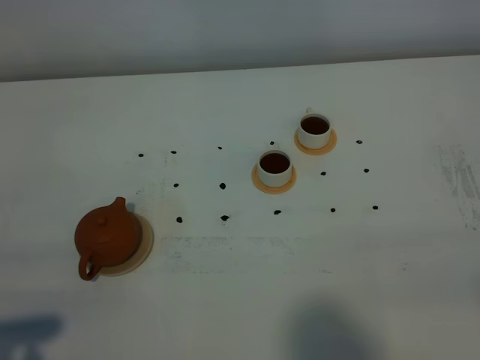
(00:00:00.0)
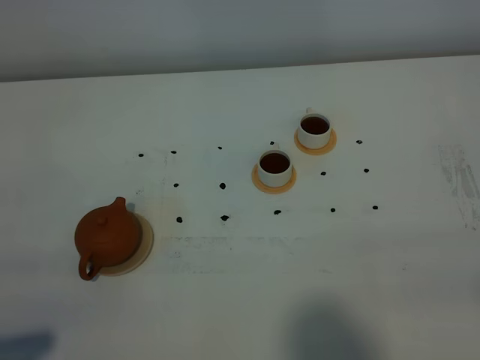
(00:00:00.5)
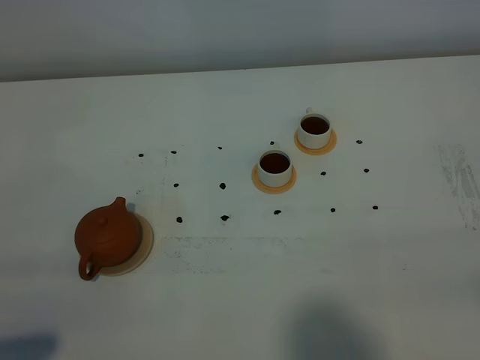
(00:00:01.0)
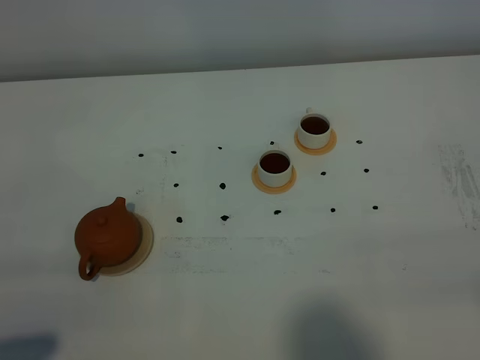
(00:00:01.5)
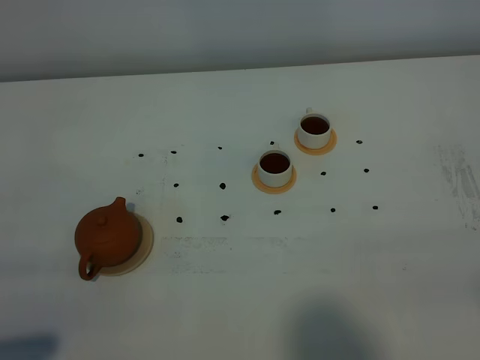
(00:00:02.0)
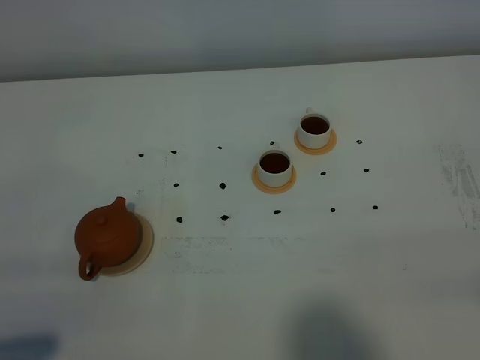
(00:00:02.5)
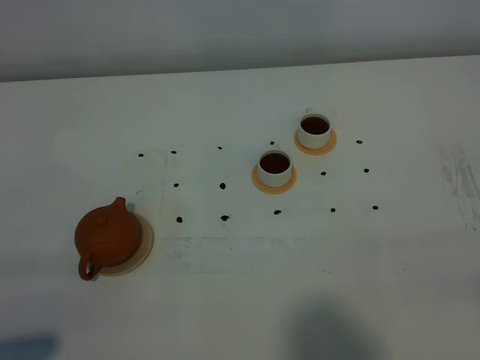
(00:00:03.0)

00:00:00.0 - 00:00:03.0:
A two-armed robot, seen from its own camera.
Task of the whole recording: grasp the brown teapot and pour the tea into the two white teacups one by one, put the brown teapot back in its original place.
00:00:01.5 - 00:00:03.0: Both grippers stay about where they are.
